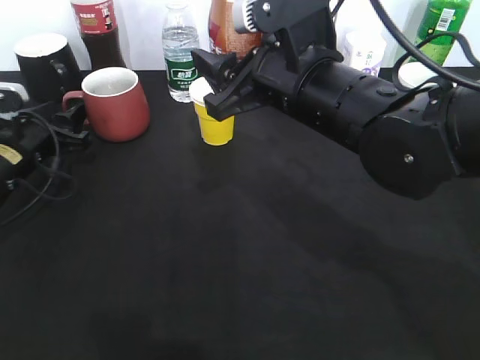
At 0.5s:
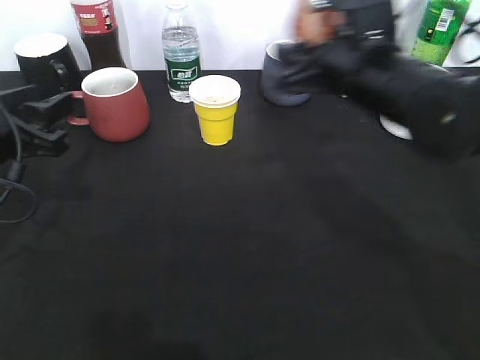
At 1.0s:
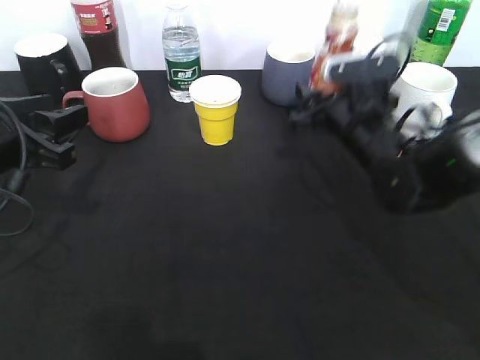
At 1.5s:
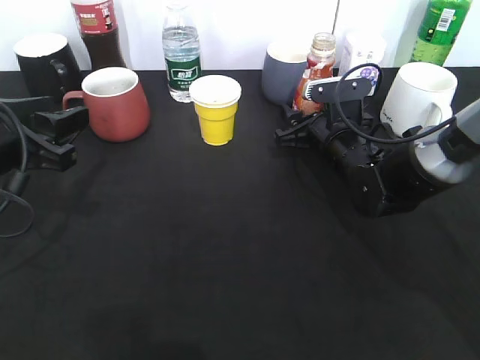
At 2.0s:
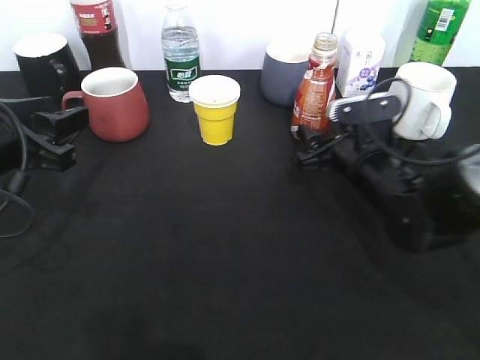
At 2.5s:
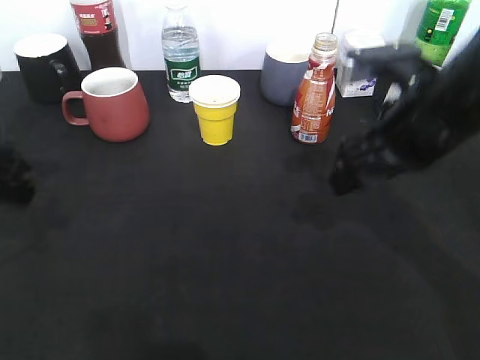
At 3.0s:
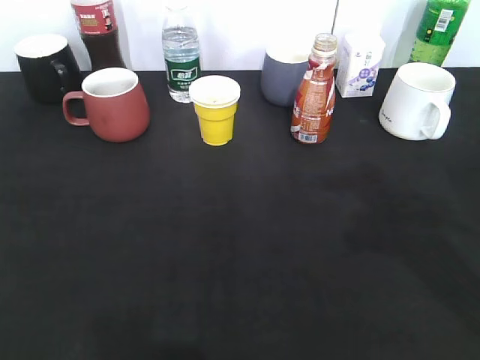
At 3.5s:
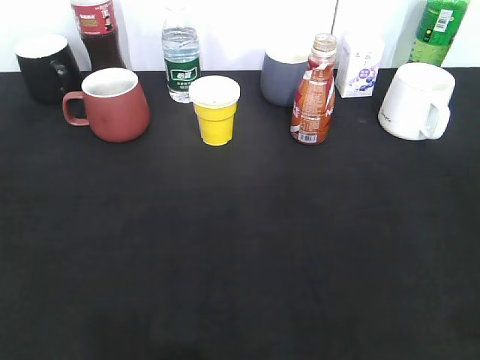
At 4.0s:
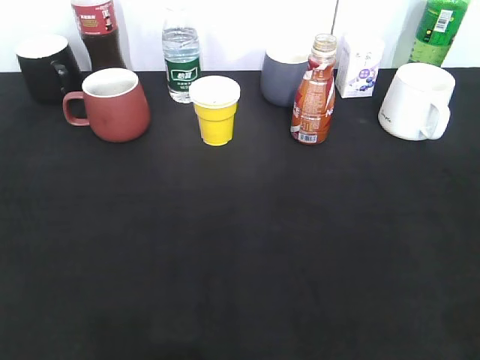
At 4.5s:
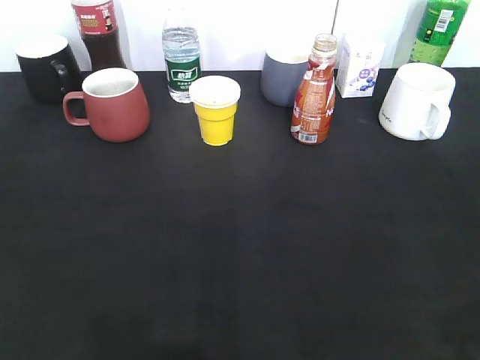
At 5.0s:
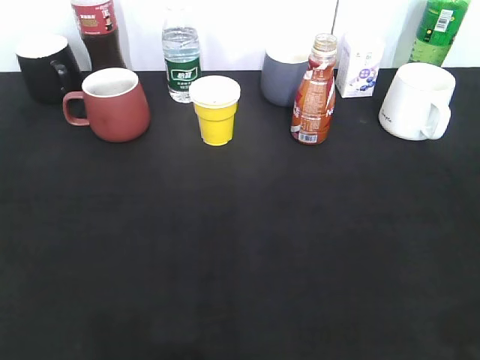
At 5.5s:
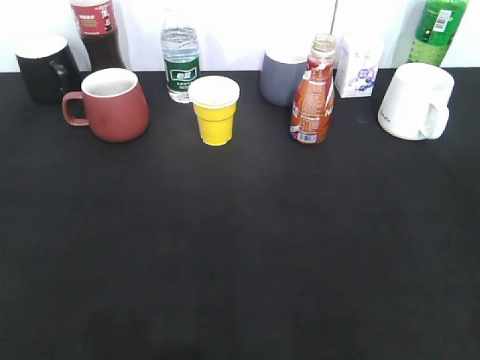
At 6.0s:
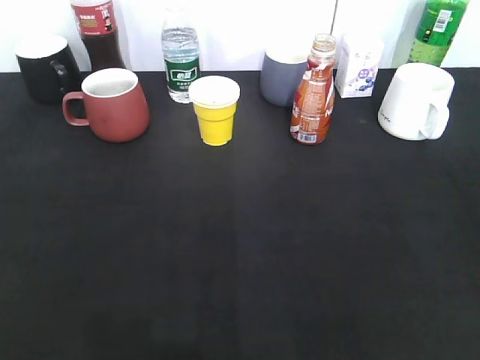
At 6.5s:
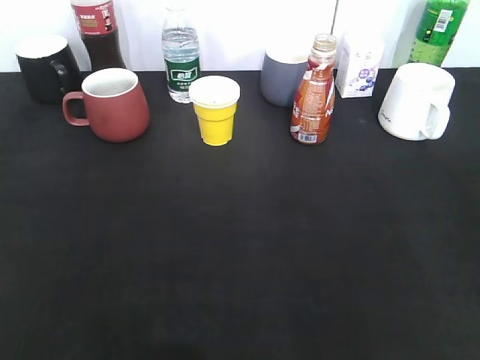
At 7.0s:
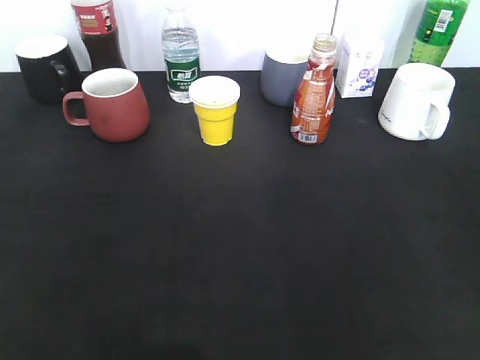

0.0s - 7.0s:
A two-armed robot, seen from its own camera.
Step, 0.0s - 1.5s: Place the coffee bottle on the table with right gripper.
0.0s - 2.0s: The left gripper heads backward and upward, covering some 15 cm. The right gripper is displaced downward and to the right by about 15 cm, and opens up.
2.0s - 3.5s: The left gripper travels backward and upward by approximately 20 cm. Meanwhile the right gripper goes roughly 40 cm backward, upward and to the right.
